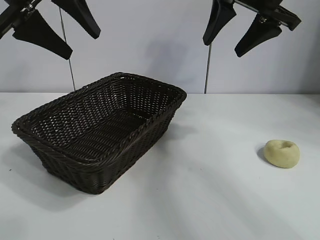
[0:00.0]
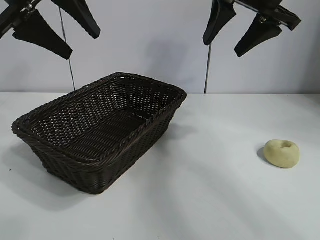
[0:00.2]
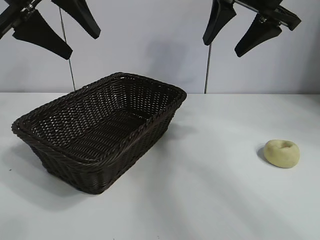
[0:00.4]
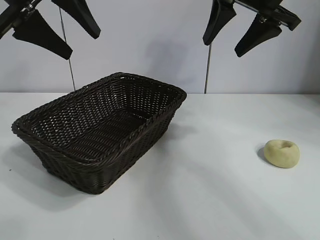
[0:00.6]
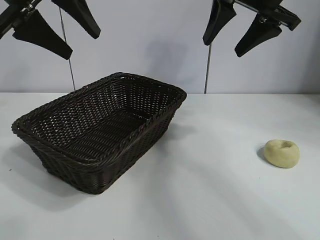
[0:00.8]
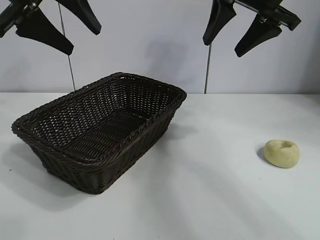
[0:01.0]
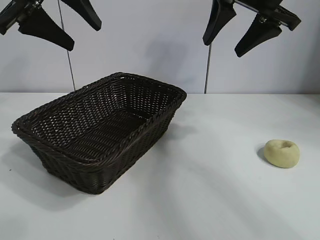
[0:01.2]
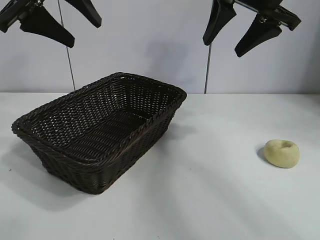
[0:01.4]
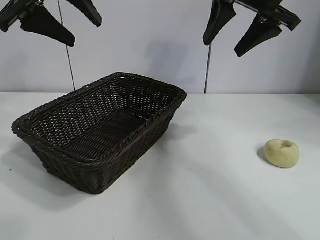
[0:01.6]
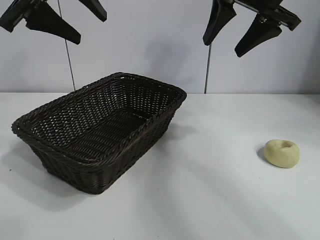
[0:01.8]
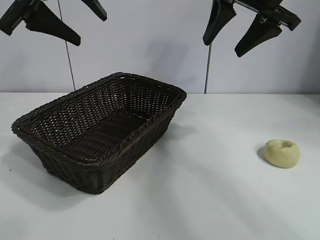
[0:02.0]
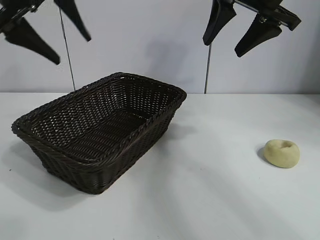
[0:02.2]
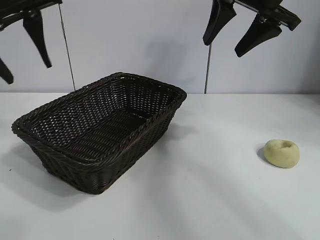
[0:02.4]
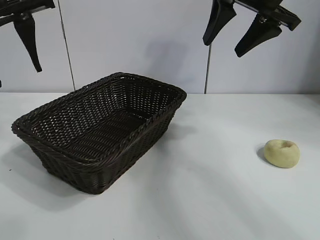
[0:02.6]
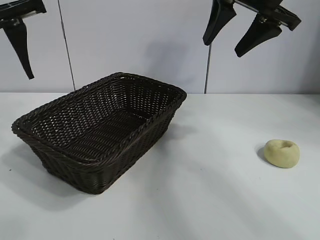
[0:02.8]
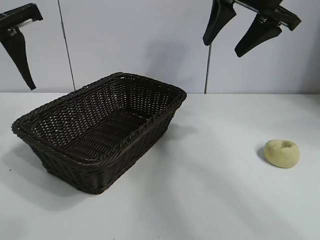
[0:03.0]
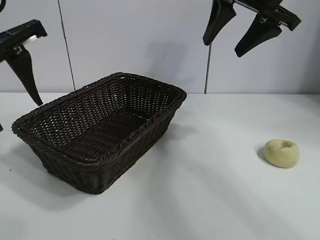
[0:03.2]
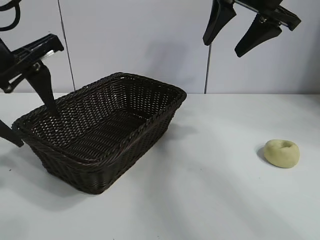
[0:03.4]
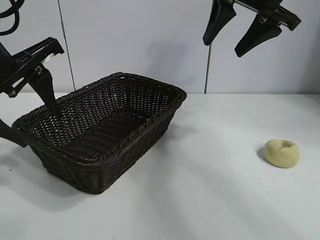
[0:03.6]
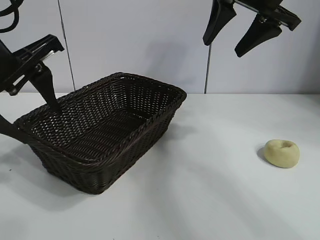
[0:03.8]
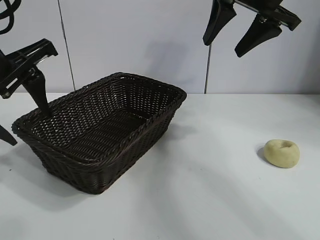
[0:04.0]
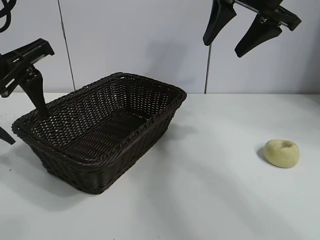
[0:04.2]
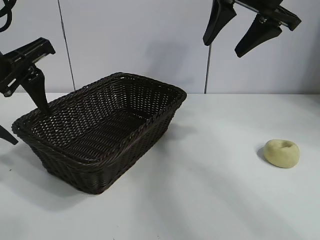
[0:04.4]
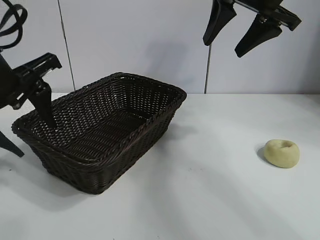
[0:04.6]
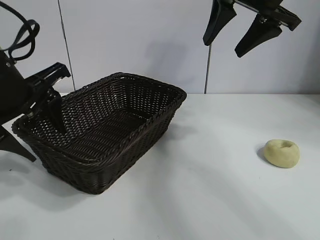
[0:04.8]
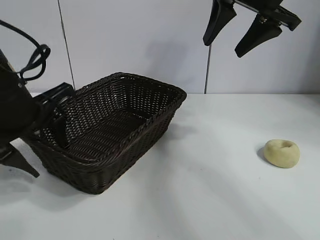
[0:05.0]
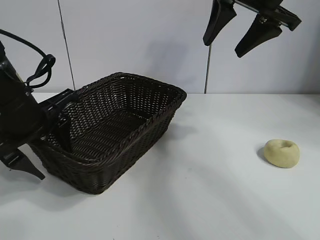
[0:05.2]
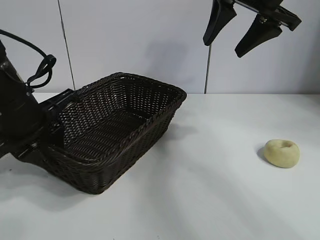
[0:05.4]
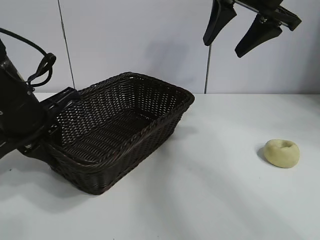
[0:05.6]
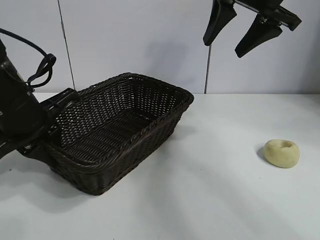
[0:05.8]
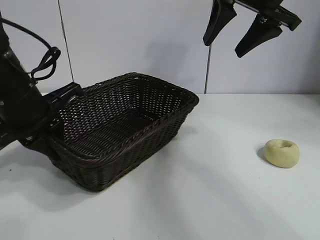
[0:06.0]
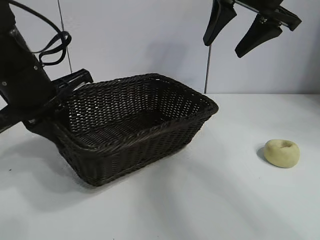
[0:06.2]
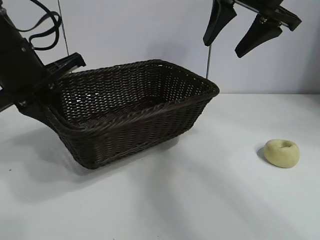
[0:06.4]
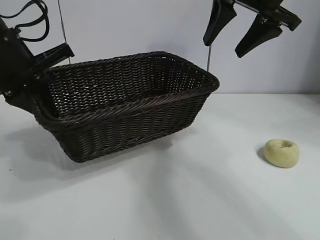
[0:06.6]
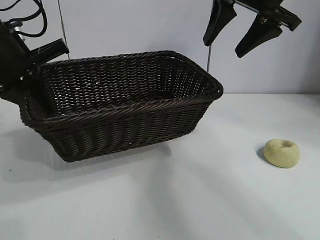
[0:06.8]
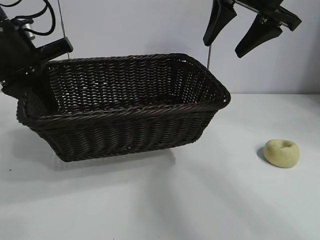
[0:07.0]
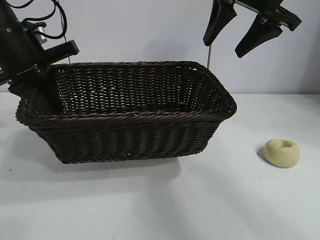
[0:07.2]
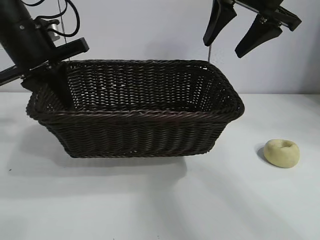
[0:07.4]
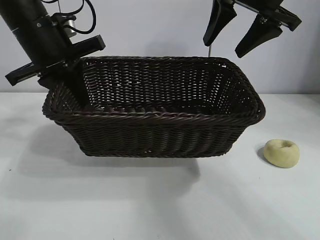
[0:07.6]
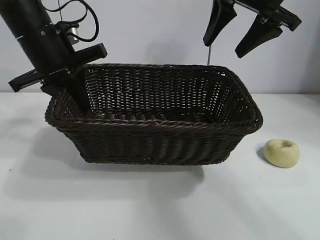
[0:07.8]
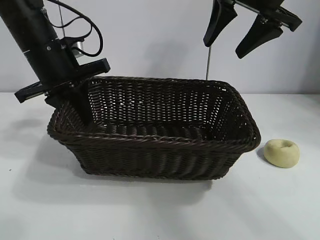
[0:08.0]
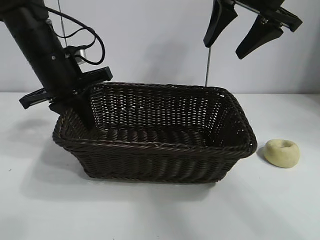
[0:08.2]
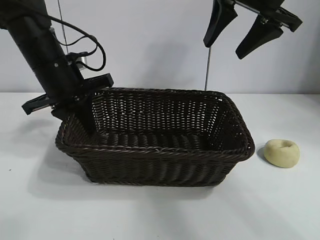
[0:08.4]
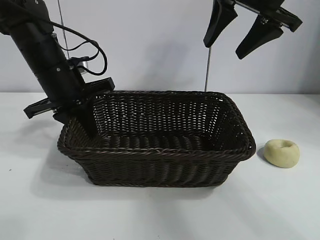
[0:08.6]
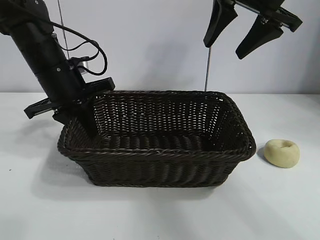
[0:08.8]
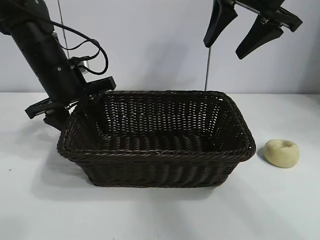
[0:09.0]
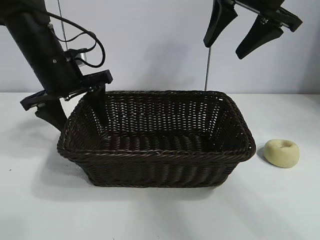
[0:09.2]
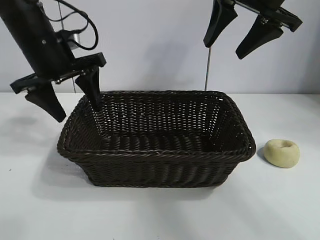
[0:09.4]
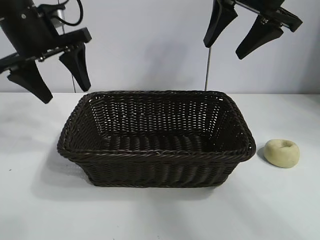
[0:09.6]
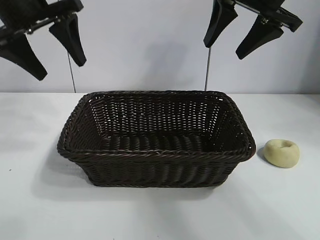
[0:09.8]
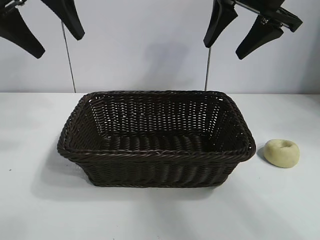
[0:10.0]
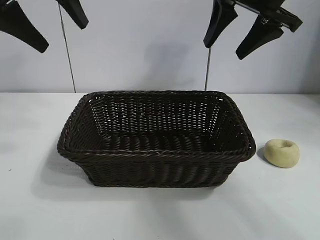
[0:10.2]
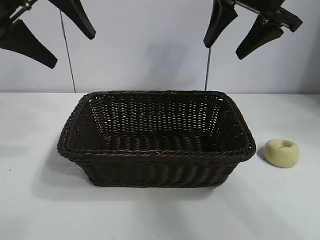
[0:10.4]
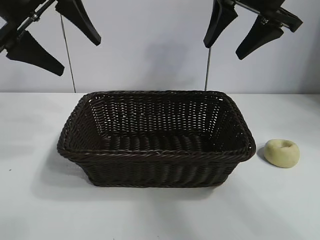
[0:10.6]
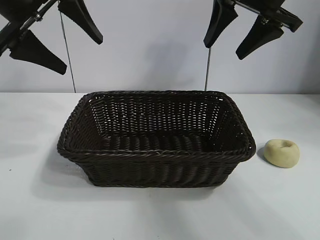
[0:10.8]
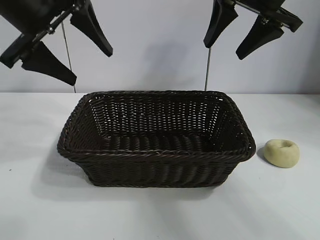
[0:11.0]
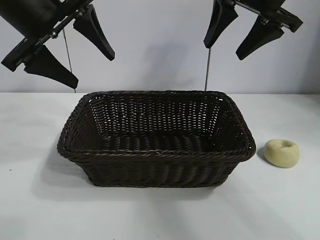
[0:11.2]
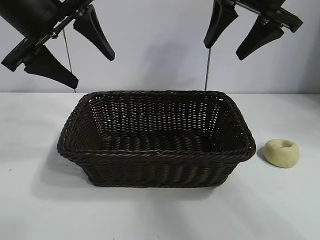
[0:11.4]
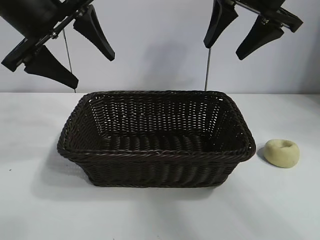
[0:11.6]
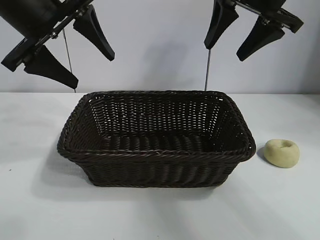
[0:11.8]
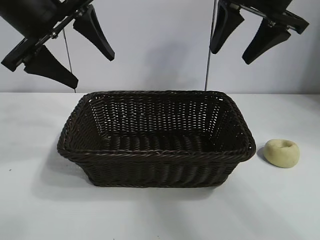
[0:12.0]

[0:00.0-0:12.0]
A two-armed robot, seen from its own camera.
Task of the whole recording: pick up the egg yolk pastry and put it into the basket.
Step, 0:01.0 to 0:05.4: Grasp the basket with left gripper.
Step, 0:05.8 to 0:08.8: Place the basket in the center of view with left gripper.

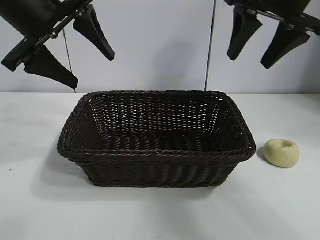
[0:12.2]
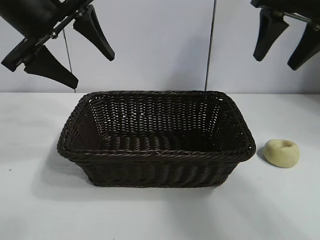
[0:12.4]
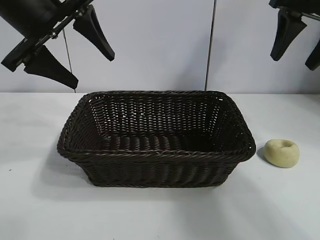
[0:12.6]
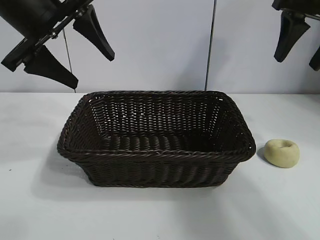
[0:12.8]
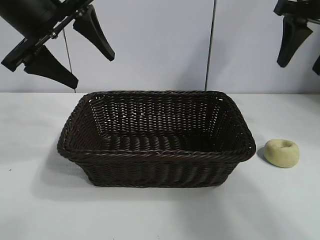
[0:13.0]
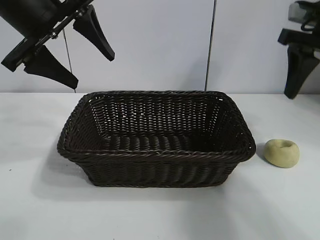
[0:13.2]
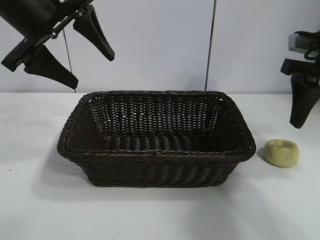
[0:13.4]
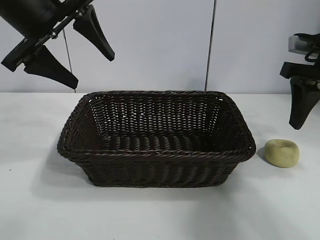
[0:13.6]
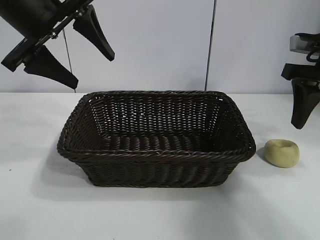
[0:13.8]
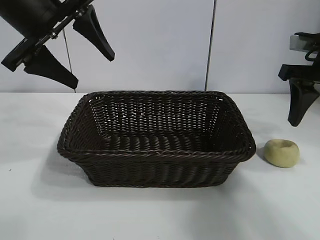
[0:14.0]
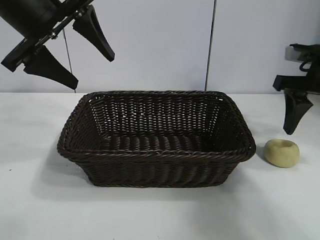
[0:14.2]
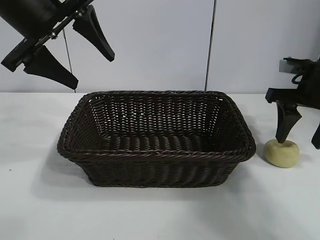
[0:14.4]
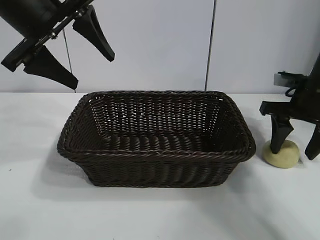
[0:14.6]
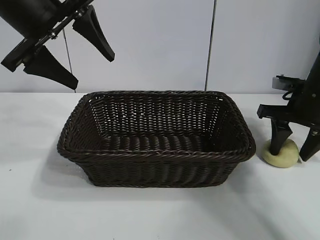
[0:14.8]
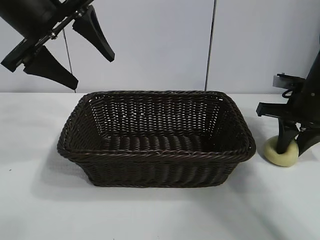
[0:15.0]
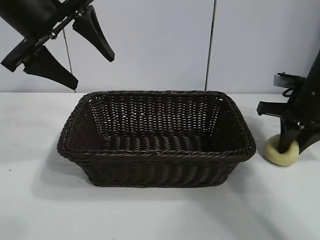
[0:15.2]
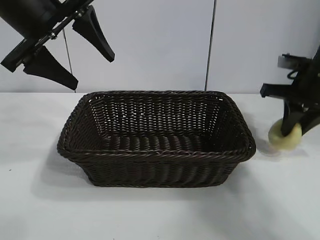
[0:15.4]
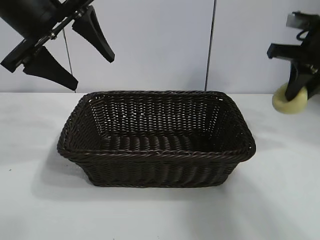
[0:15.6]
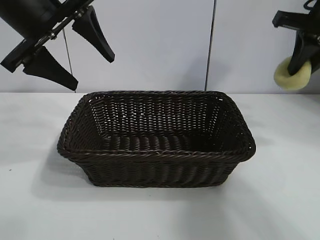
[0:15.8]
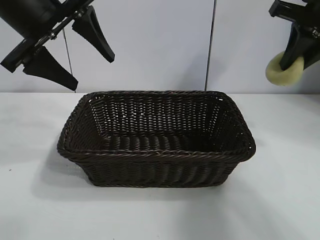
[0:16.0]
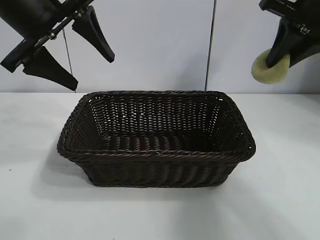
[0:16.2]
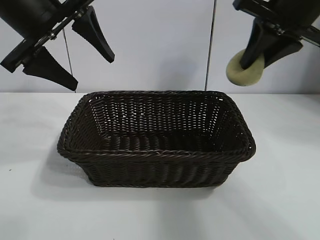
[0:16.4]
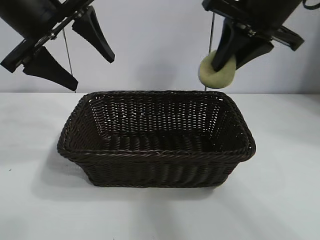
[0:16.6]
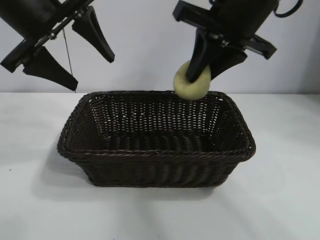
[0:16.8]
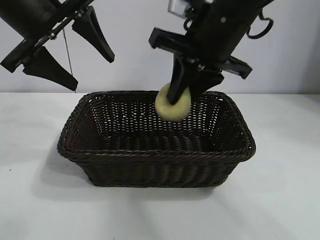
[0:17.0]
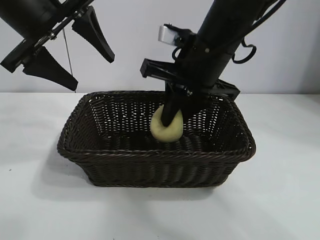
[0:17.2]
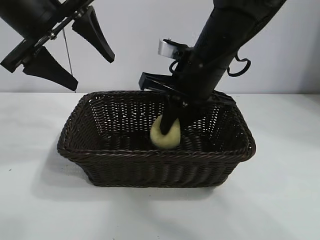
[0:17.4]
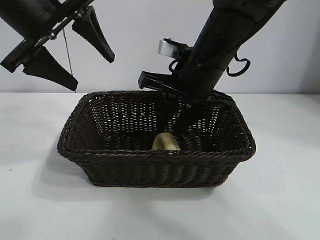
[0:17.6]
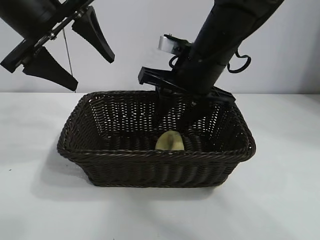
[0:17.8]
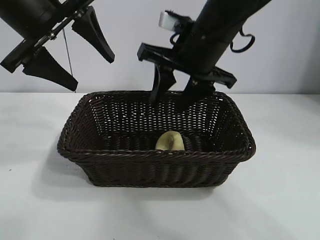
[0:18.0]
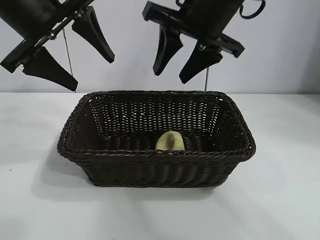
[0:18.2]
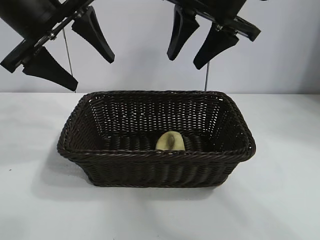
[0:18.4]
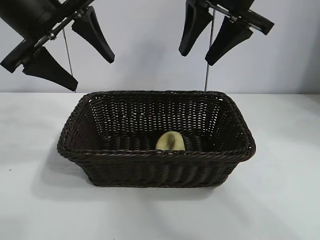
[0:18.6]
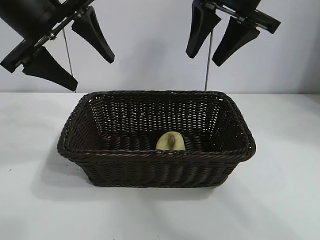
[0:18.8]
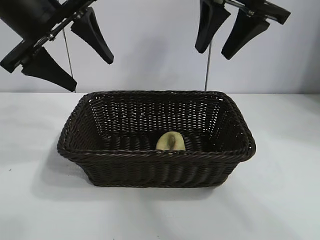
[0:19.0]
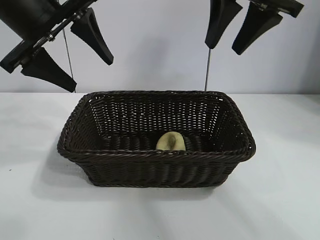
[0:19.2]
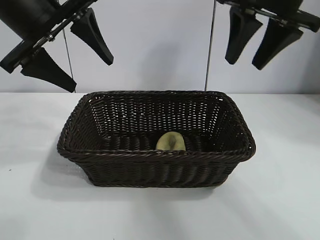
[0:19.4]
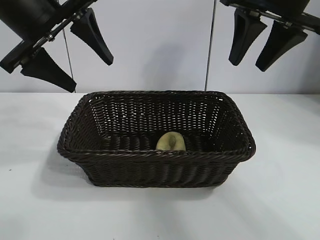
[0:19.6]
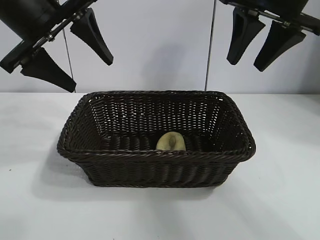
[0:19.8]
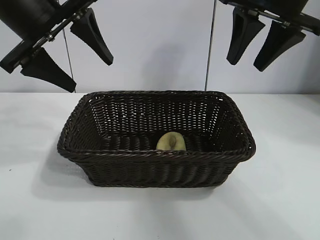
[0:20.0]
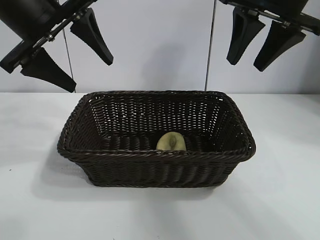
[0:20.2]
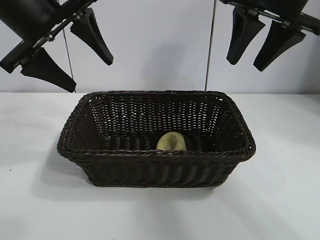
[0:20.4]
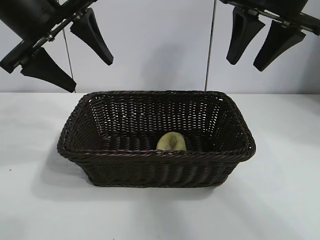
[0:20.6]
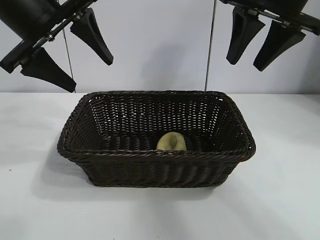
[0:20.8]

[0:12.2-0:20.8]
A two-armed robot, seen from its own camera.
Task of the whole recording: pick up the egg yolk pastry and put it into the basket.
Step, 0:12.2 to 0:14.8: Grasp egg yolk pastry with right gripper.
Step, 0:15.2 to 0:17.6: Place the egg yolk pastry in the basket with right gripper.

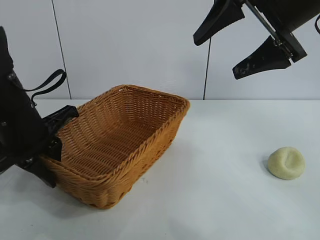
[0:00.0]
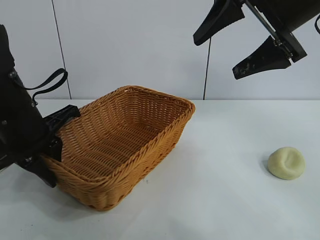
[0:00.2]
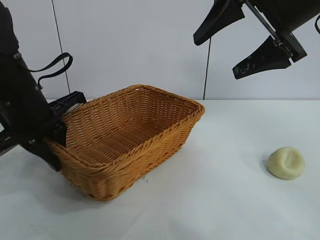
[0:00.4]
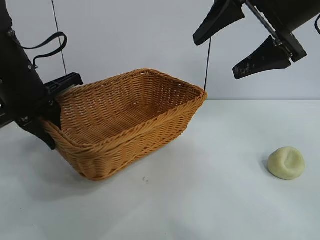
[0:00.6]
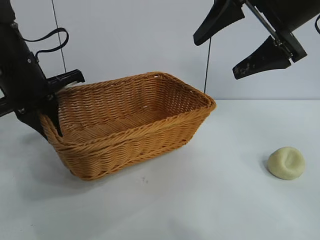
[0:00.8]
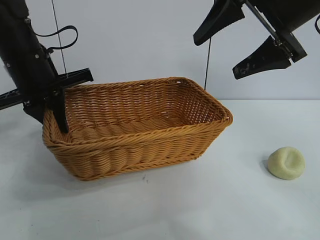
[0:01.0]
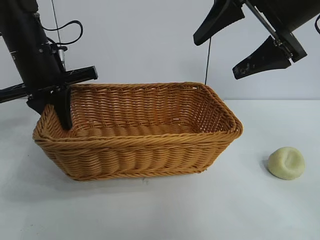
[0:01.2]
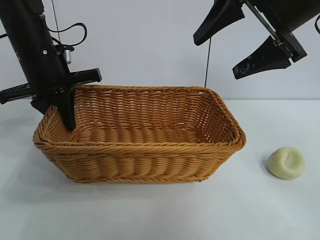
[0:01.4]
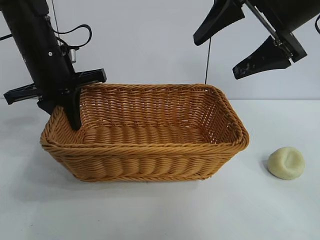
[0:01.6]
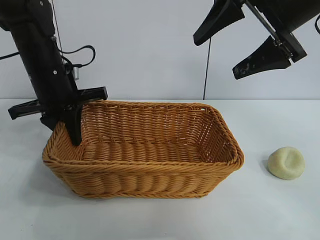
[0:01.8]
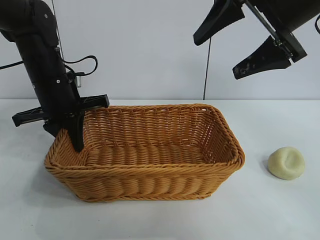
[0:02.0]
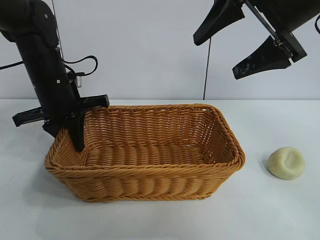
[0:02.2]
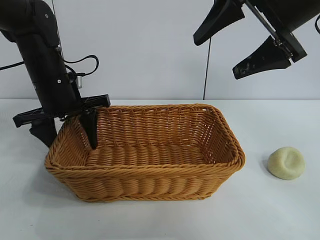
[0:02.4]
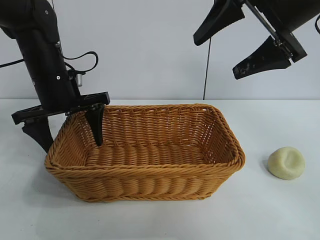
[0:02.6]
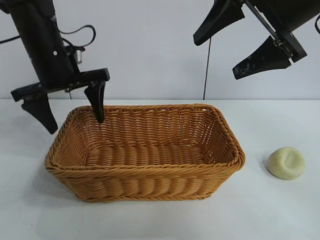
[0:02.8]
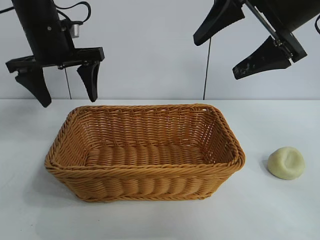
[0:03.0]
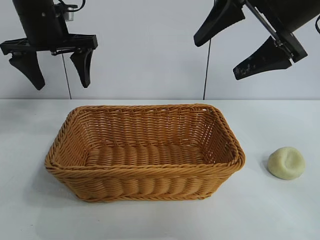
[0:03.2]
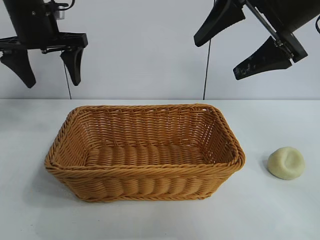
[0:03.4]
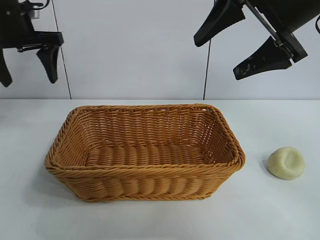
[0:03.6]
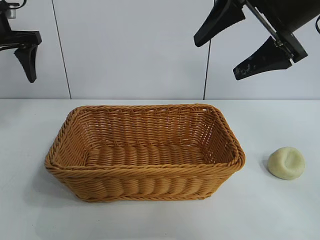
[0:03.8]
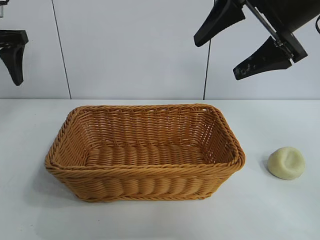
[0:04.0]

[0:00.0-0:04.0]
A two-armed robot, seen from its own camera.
Task of the whole recording: pick up the egg yolk pastry and put it into the basket.
Step, 0:00.2 to 0:02.2: Place the basket in the center of view with left gripper.
